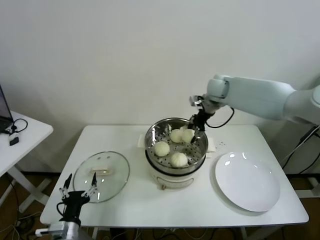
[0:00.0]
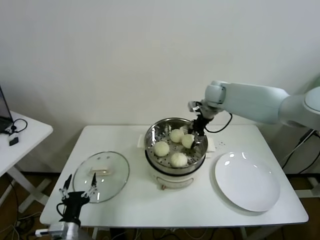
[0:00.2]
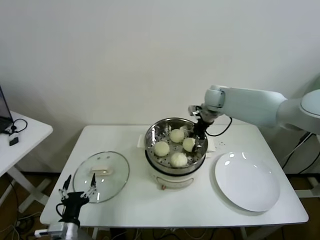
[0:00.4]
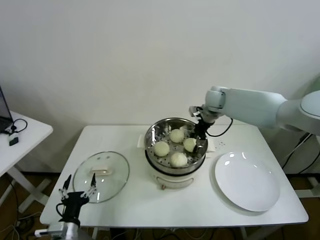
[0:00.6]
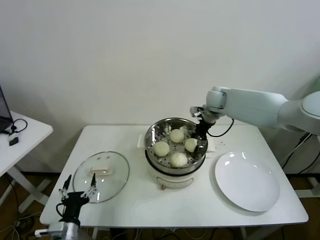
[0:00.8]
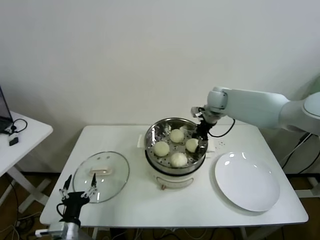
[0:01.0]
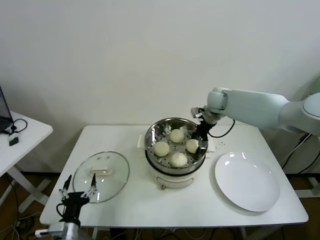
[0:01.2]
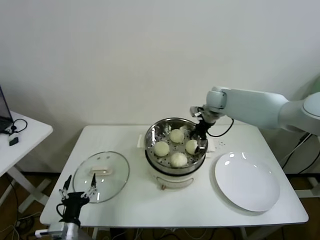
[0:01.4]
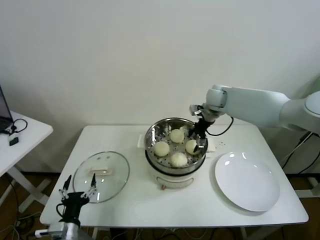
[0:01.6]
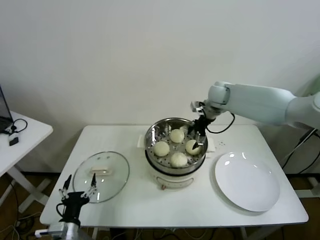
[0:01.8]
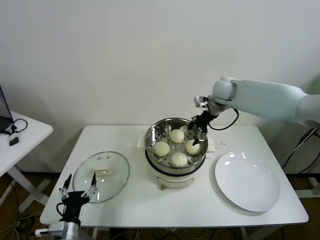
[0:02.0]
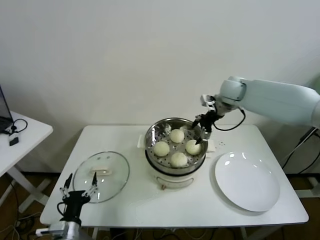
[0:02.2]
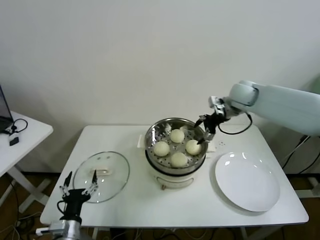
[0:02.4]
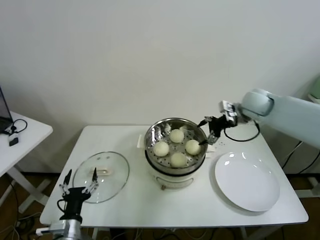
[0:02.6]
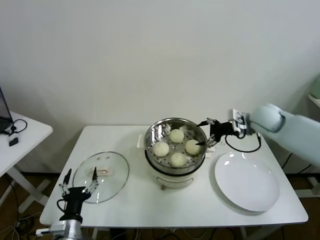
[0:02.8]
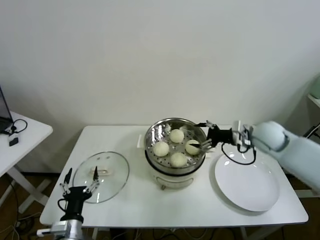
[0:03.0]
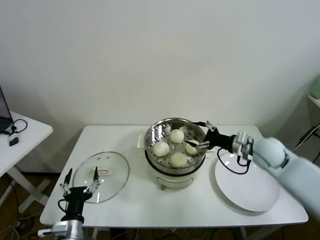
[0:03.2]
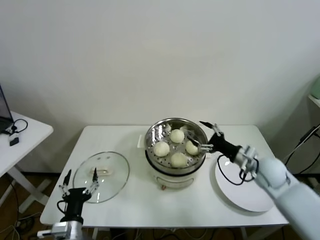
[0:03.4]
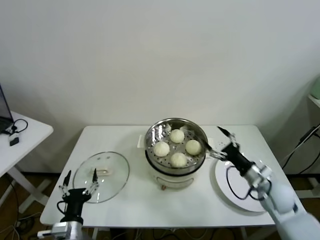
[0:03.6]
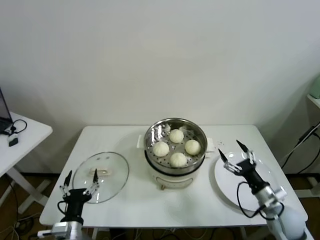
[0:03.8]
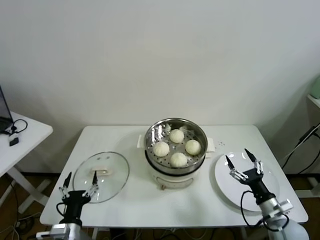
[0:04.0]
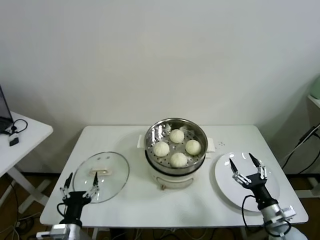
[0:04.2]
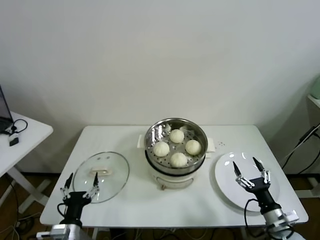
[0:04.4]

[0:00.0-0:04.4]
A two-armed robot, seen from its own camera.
Task of the whole recording: take steamed baozi put them in steamer.
0:00.0 to 0:01.4: The right gripper goes about 5 cm downward, and opens.
0:01.4 to 0:03.0: The right gripper moves backward and to the right, about 20 cm.
0:03.0 to 0:04.4: The right gripper moves backward and downward, approximately 35 cm.
